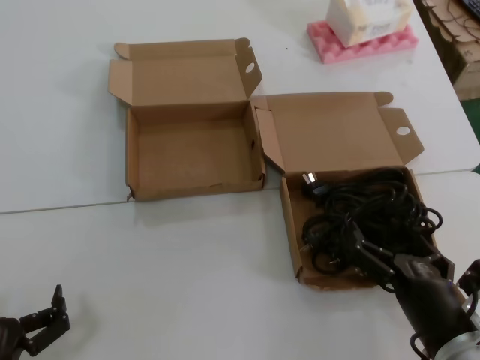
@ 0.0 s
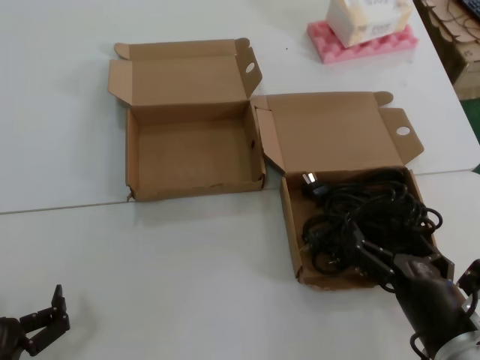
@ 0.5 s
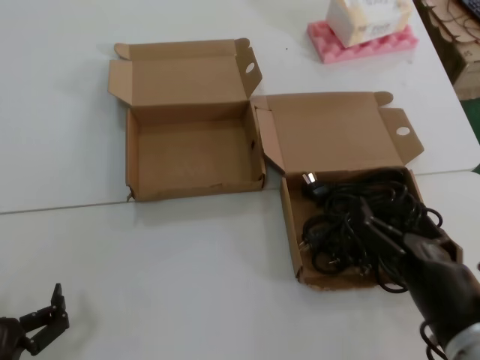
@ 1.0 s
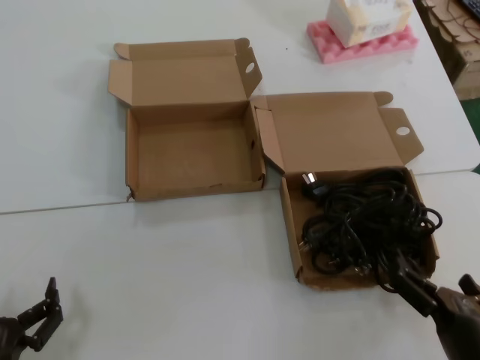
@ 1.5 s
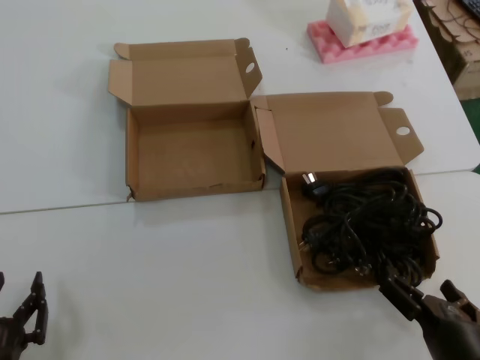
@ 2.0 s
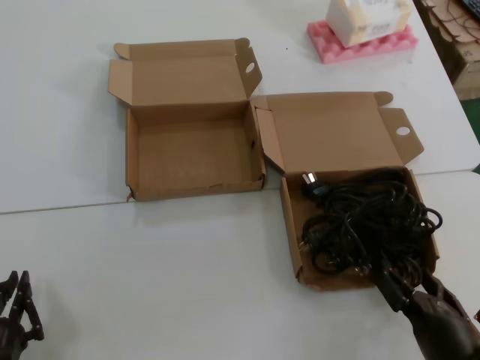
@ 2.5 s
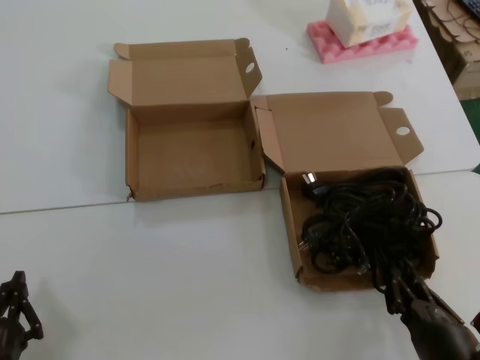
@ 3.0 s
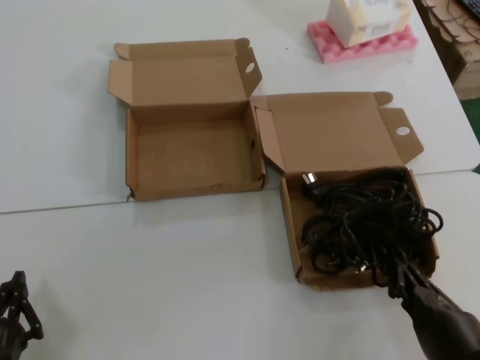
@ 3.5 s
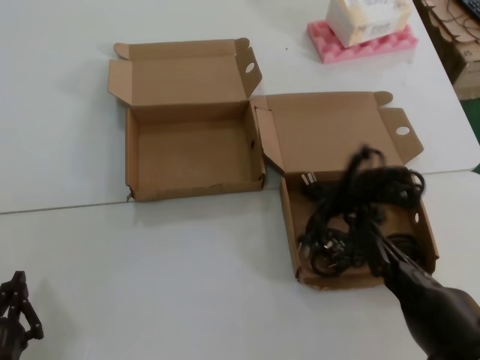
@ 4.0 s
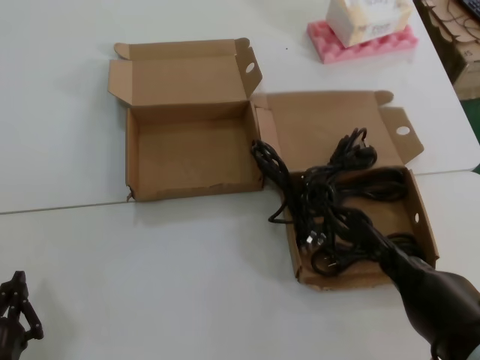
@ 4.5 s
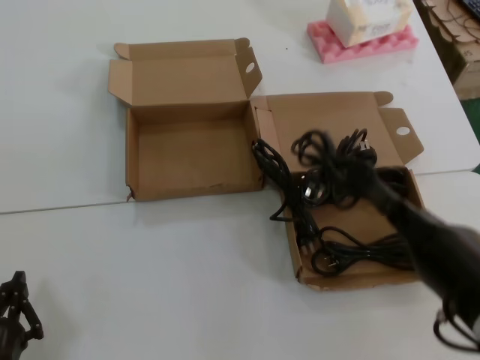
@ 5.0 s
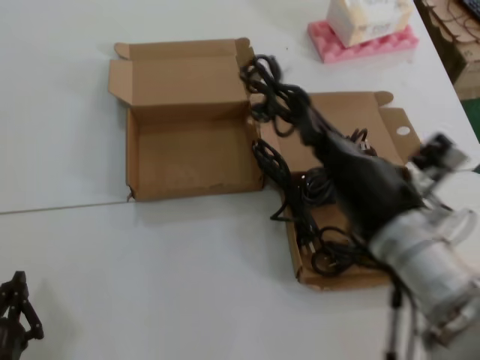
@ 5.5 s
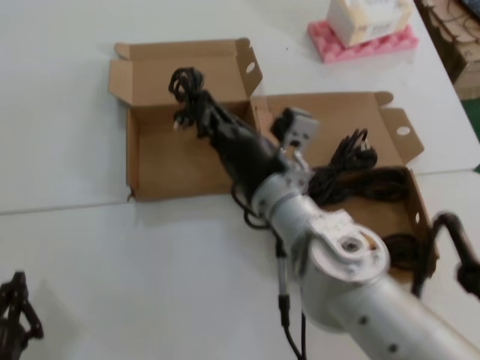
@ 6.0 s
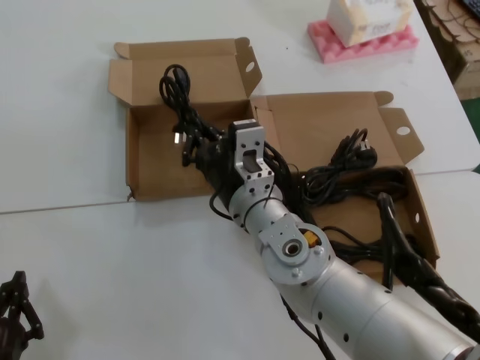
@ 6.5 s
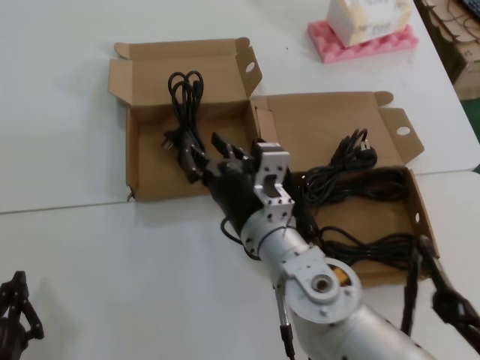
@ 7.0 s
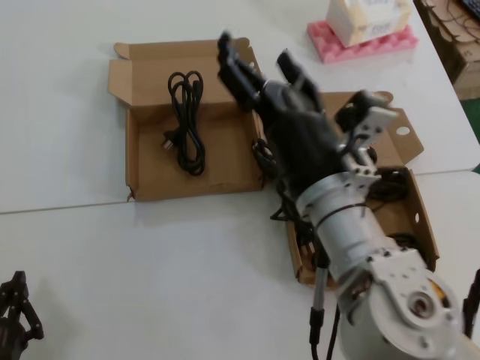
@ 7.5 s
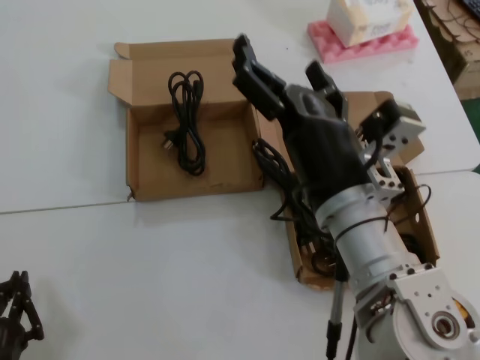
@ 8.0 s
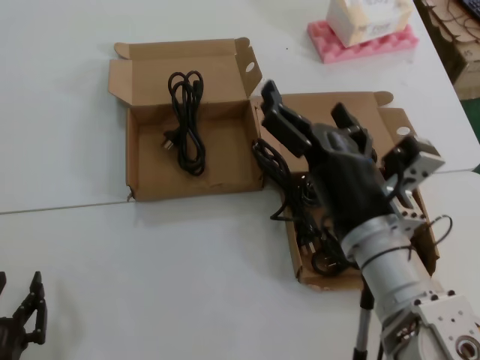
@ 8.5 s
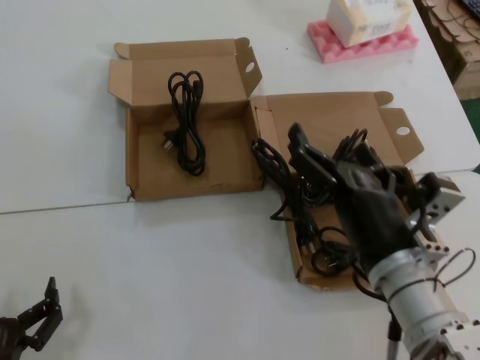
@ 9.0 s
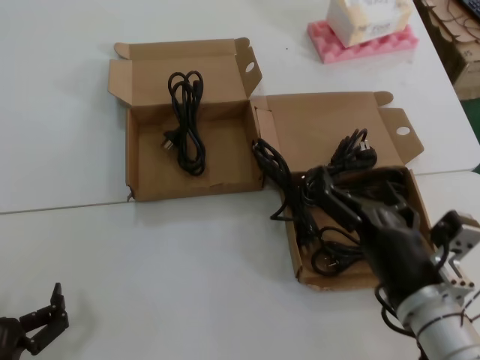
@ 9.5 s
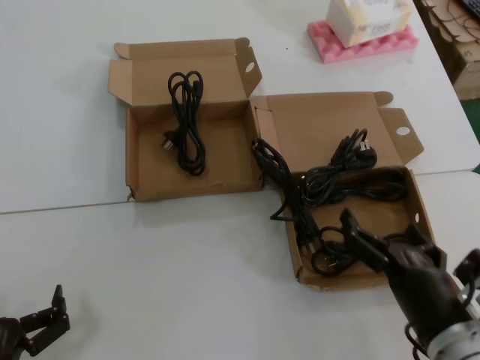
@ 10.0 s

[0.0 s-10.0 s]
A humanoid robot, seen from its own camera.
Task of the whole recording: Pick up the power cord from the box containing it and place it in another box.
Step, 0.0 to 4.0 s: Grasp the data cable.
Step, 4.5 to 6.5 s: Place the data cable in the another box.
0.0 to 2.0 s: The hands make only small movements.
2.0 to 4.0 s: The right hand is displaced upward by some 10 cm.
4.0 to 6.0 s: The right hand heads forward and to the left, covering some 30 cm.
6.0 to 8.0 s: The right hand shifts approximately 10 cm backward.
8.0 to 10.0 s: The right hand shifts approximately 20 cm downward, to the right and backward.
